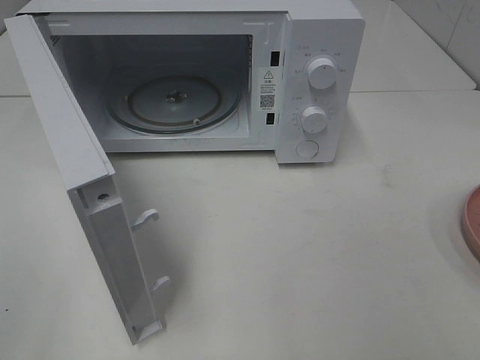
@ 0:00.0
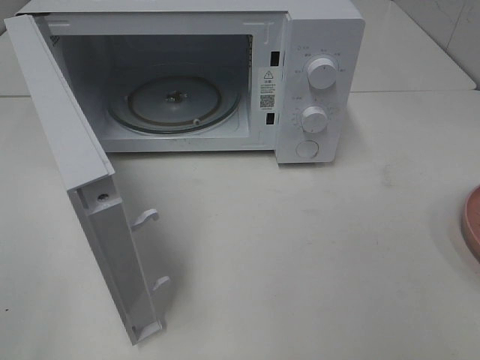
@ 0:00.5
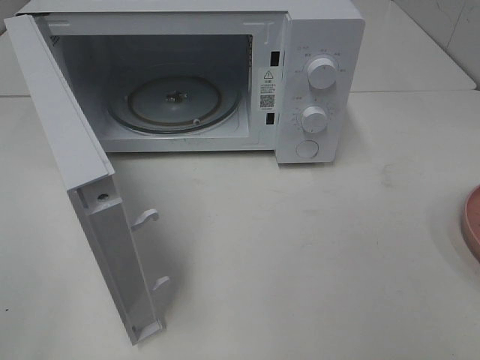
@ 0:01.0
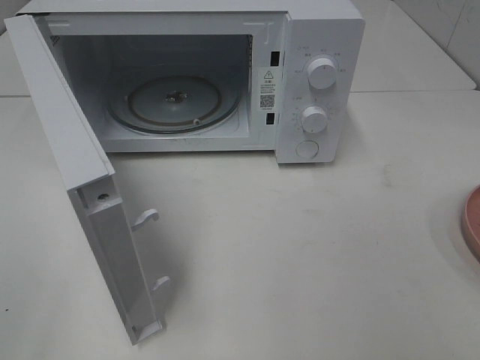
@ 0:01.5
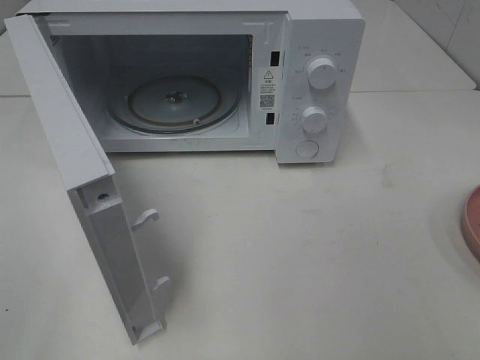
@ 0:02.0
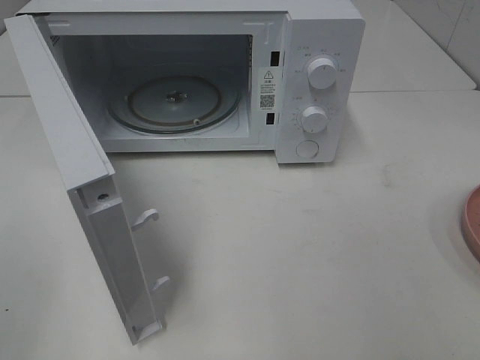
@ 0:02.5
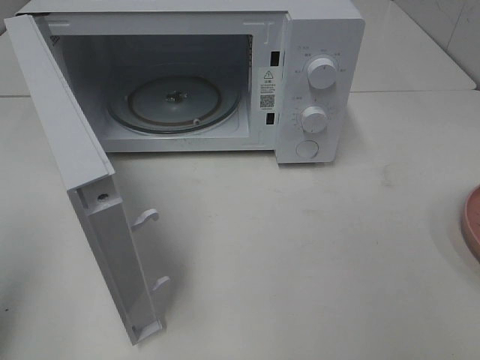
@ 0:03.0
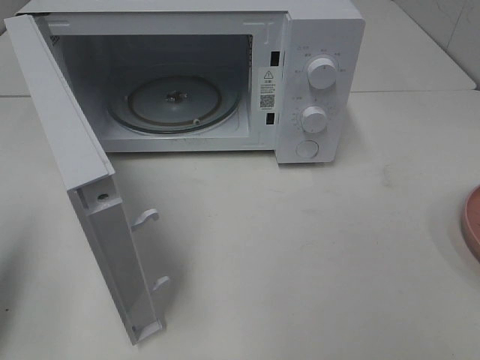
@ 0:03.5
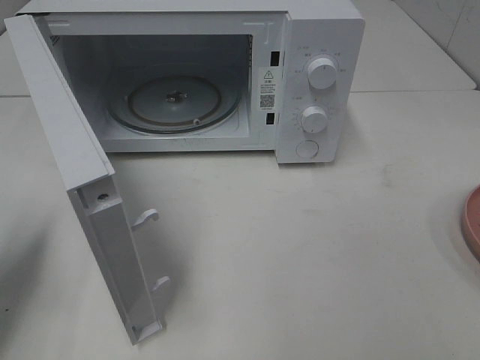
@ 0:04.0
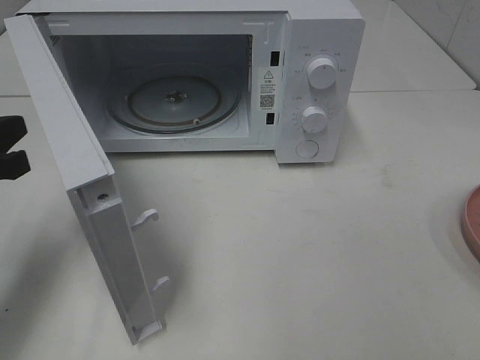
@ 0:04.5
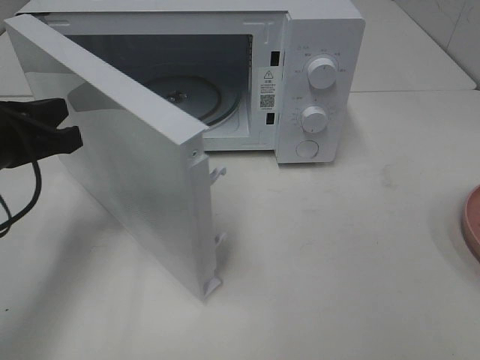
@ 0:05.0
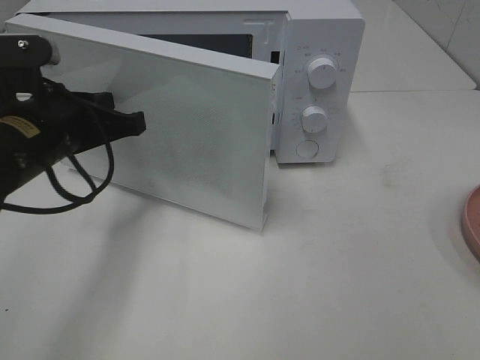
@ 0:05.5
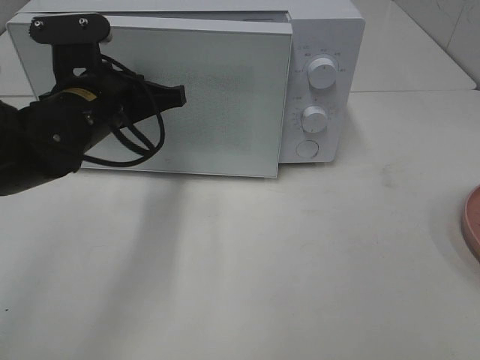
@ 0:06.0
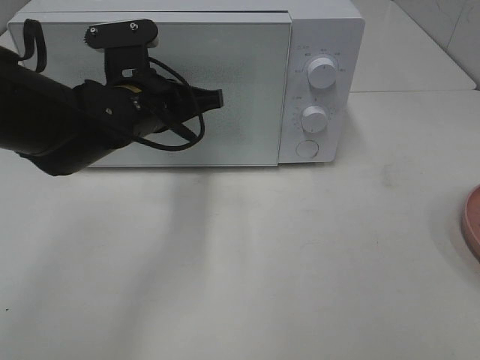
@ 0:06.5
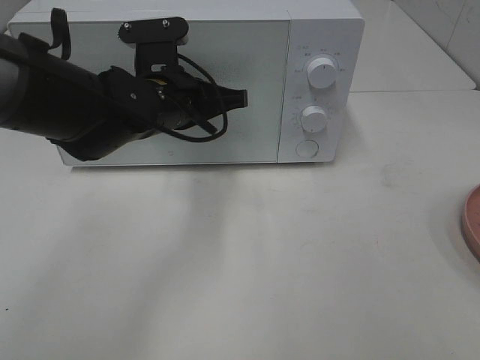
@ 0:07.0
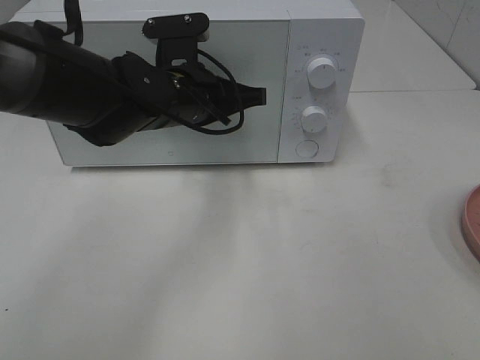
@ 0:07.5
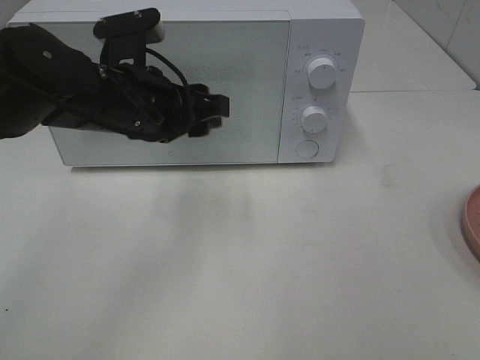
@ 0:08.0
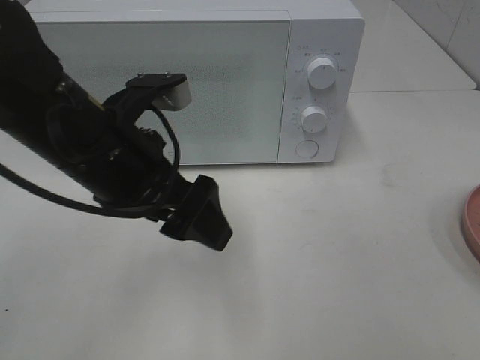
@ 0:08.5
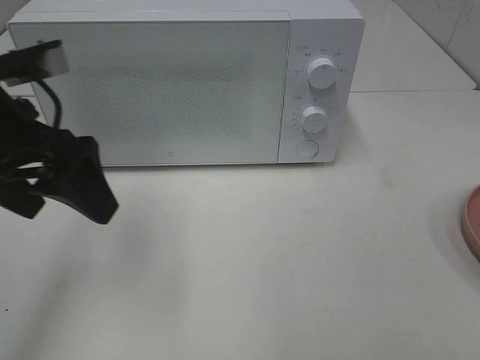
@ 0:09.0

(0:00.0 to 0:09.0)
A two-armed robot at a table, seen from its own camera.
Task of the whole recording: Heat the burger.
Step, 0:00.0 - 0:08.0: Left hand: close the microwave door.
0:00.0 - 0:02.0: Both grippers stay about where they are.
0:02.0 - 0:04.5: The left gripper moves forward and downward, about 25 cm, and closes up.
0:04.5 - 0:07.0: The left gripper heads to the right and forward, covering roughly 25 cm.
0:07.0 - 0:09.0: The left gripper is displaced to the left, backward and upward by roughly 20 cm, and opens its fingers.

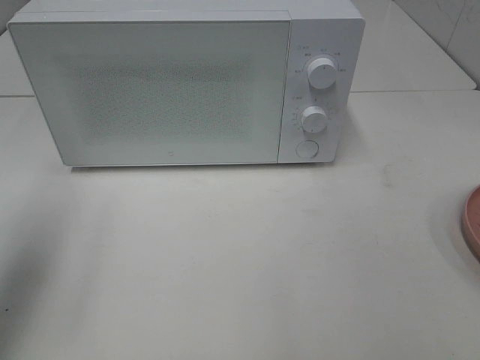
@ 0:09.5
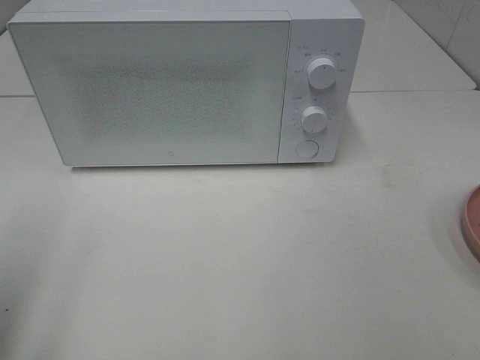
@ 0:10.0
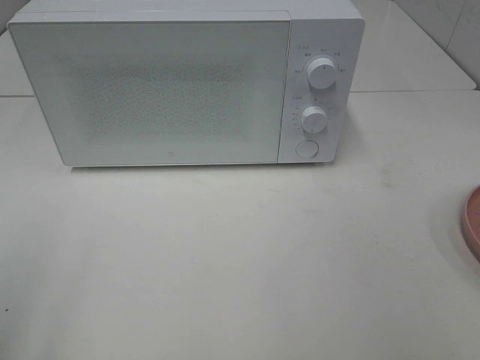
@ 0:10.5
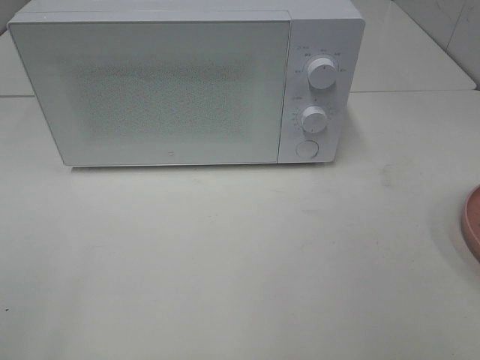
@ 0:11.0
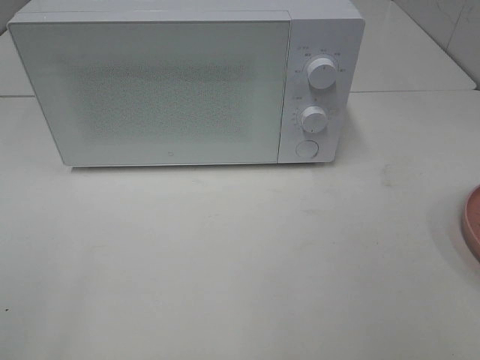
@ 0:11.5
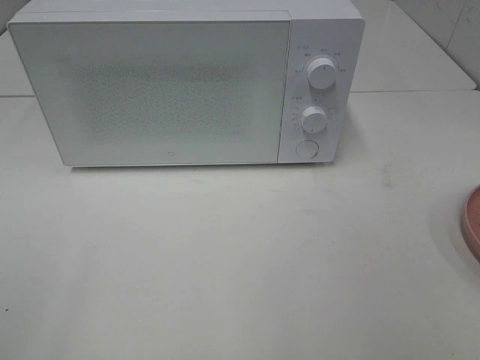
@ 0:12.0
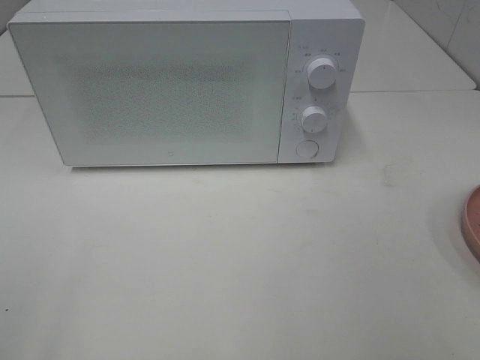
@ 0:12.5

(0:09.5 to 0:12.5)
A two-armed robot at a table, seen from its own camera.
Task of the whole recording: Heat the burger.
0:09.5 - 0:11.0: The left gripper moves backward, about 20 cm.

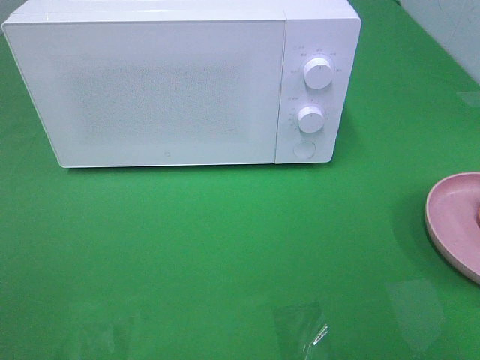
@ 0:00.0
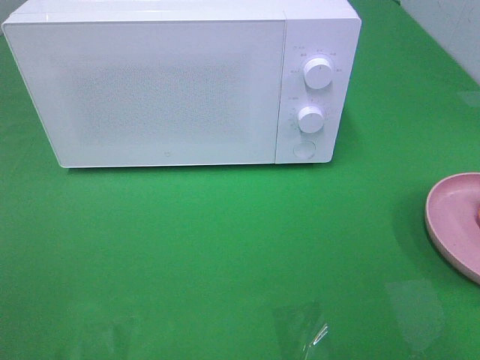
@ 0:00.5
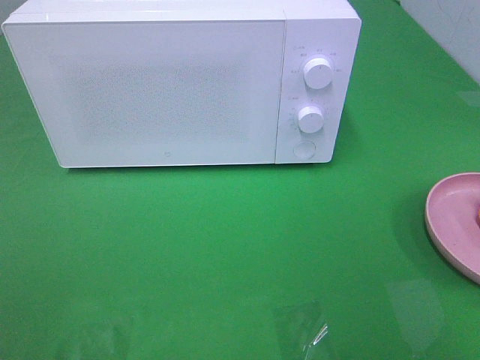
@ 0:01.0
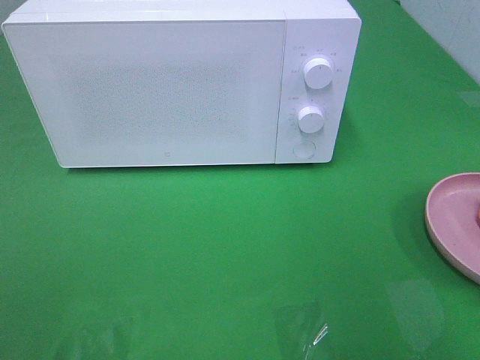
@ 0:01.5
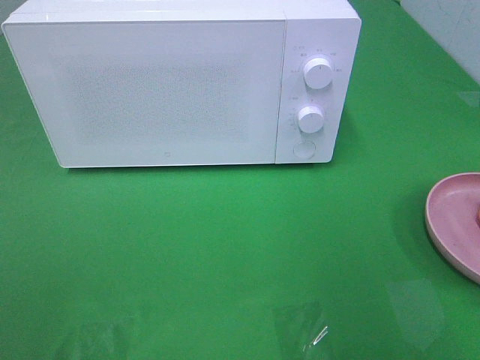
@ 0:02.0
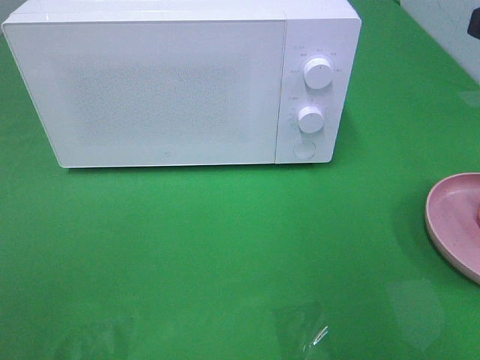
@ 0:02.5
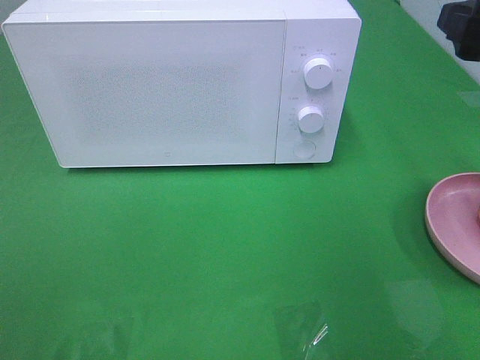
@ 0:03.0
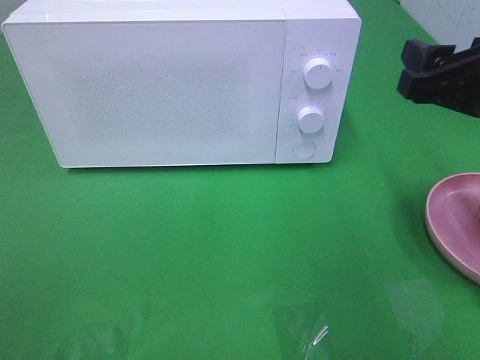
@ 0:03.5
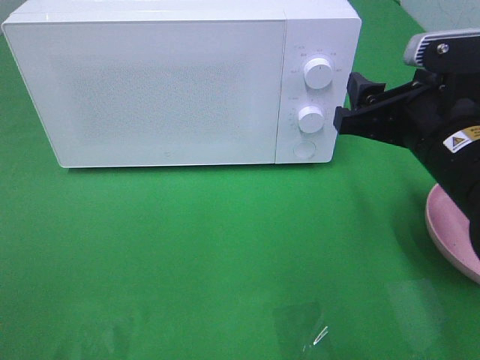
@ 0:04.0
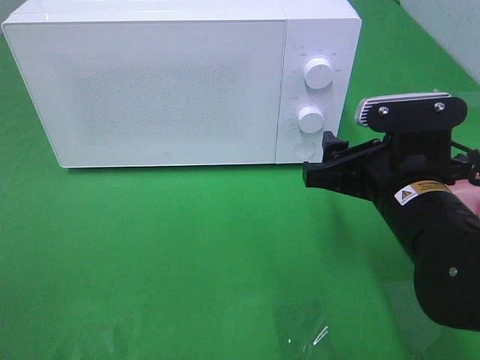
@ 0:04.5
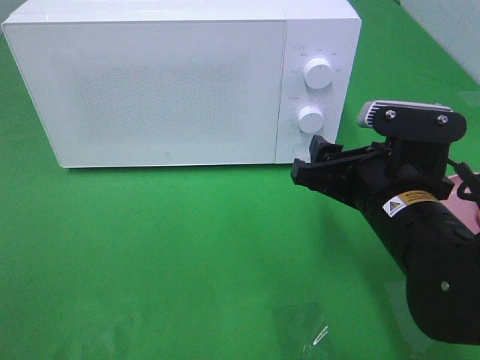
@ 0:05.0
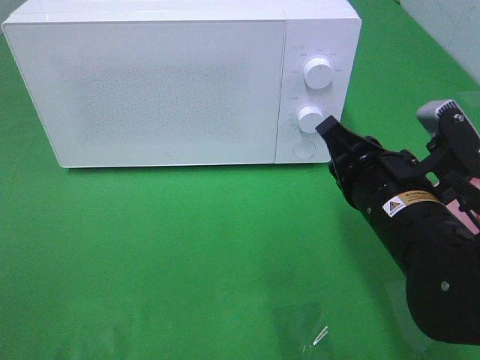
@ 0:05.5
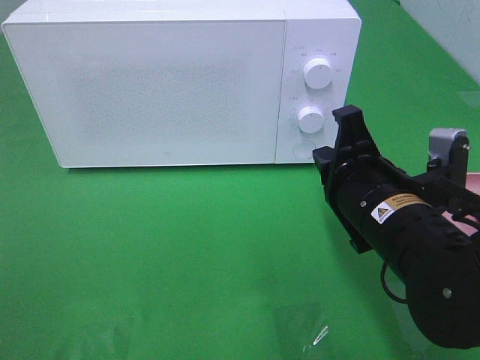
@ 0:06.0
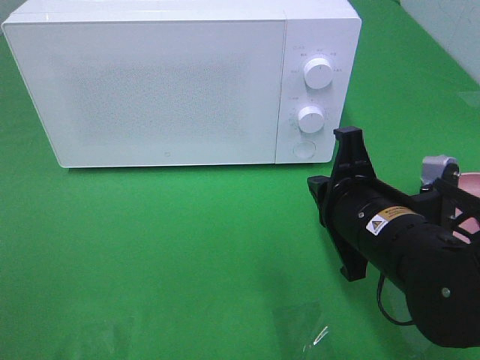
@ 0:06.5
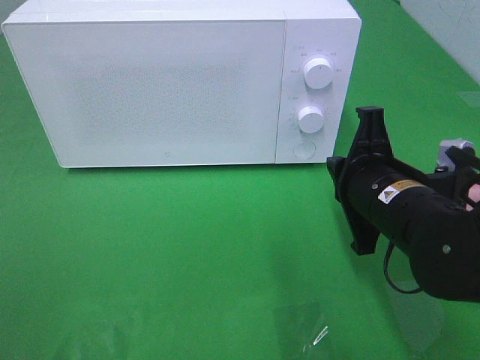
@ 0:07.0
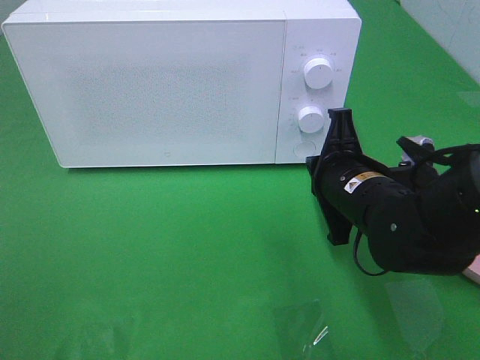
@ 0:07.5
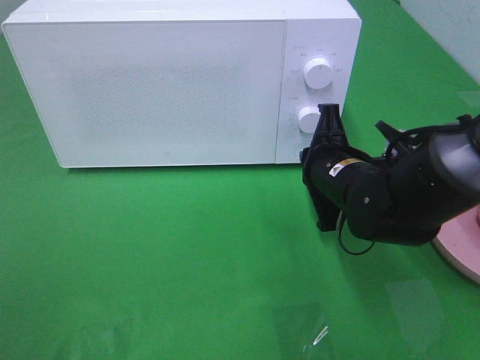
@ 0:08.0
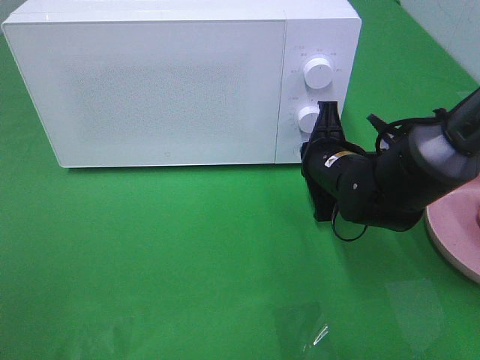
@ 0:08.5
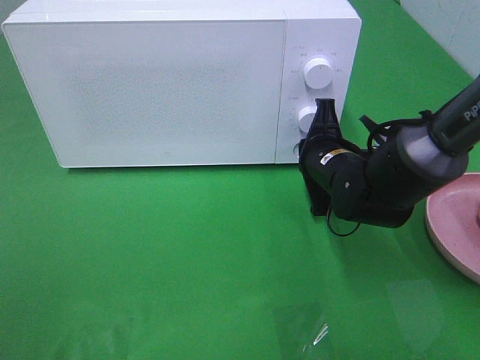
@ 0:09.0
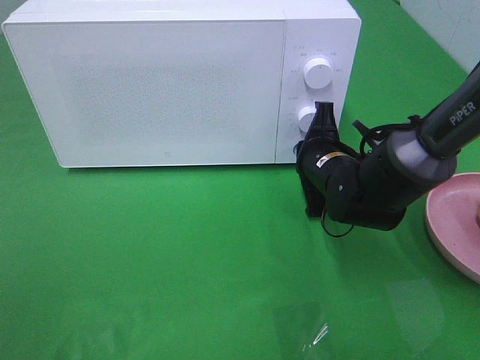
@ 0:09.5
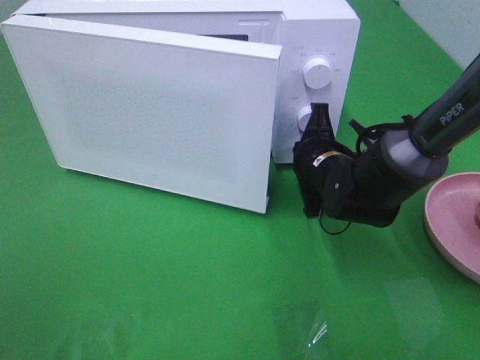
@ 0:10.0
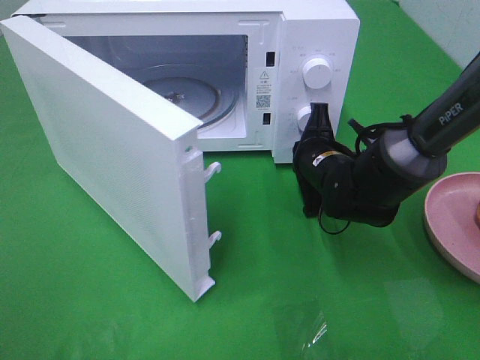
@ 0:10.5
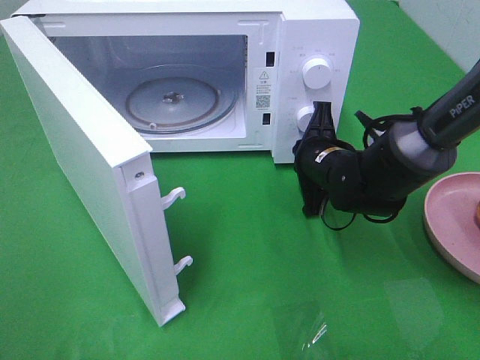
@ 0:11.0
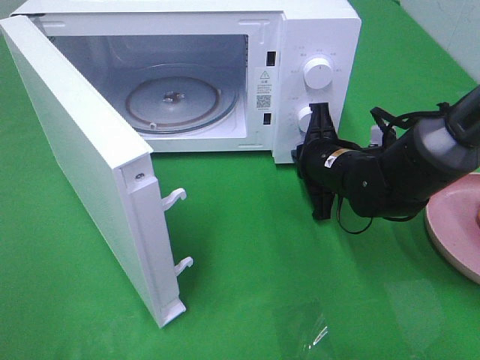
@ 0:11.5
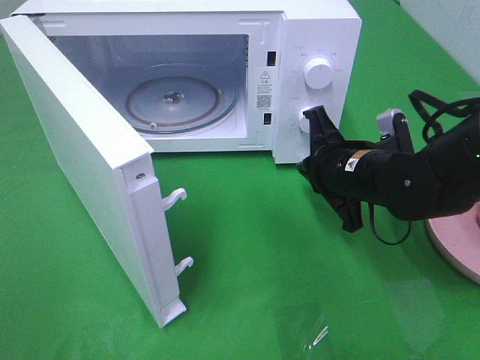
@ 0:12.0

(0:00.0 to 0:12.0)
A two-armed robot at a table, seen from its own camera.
Task of the whole recording: Heat the burger.
Step, 0:00.0 - 0:11.5: Right hand: press the switch.
0:02.0 - 0:04.0: The right gripper moves downward, to the left and forward, some 15 cm.
0:04.0 - 0:06.0: The right gripper moves downward and to the left, roughly 5 cm, and closes.
0:06.0 - 0:08.0: The right gripper goes approximately 10 cm forward.
0:08.0 - 0:10.0: The right gripper shifts some 5 cm forward.
0:10.0 - 0:12.0: The right gripper travels backward by roughly 5 cm.

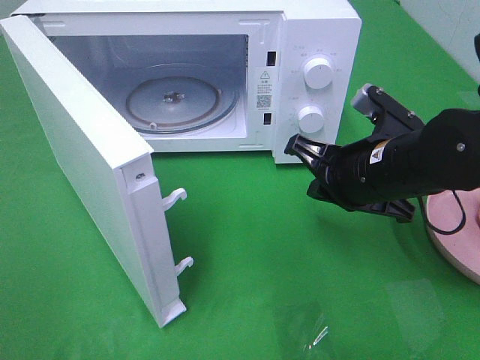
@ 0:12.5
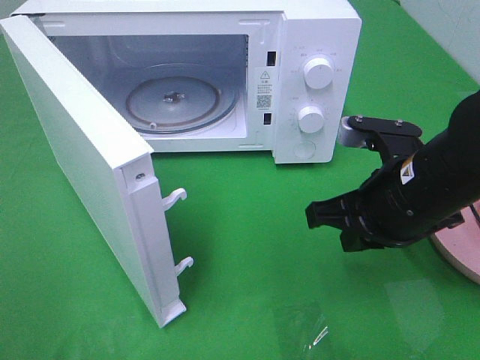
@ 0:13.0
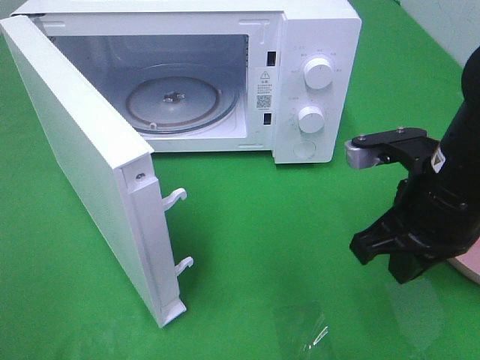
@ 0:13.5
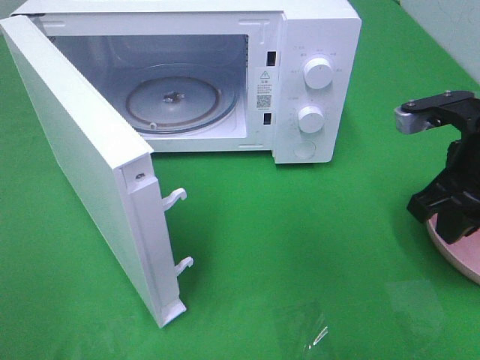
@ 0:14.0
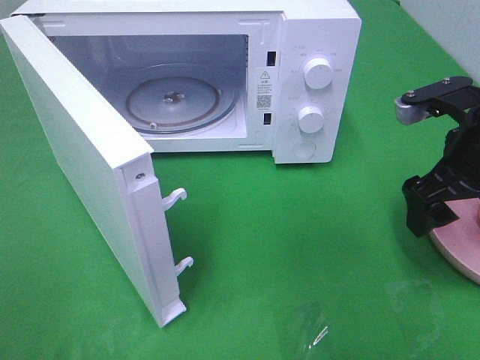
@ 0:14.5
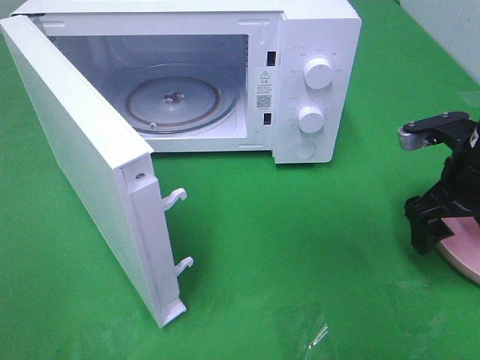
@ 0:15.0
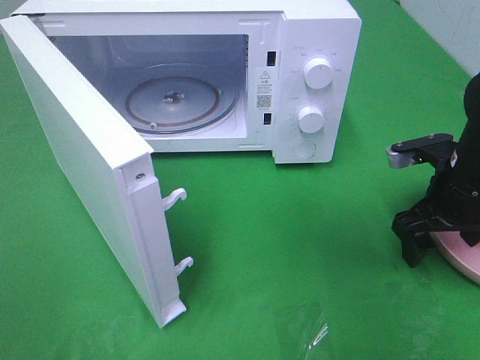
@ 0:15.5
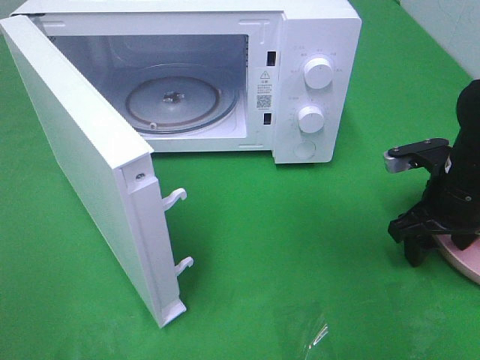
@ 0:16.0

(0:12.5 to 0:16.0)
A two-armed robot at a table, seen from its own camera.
Task of the whole recording: Heat the burger.
0:12.5 - 0:14.5: The right gripper moves to the right, approximately 10 cm, and opens.
0:14.5 - 0:16.0: The right gripper goes about 10 cm downward.
